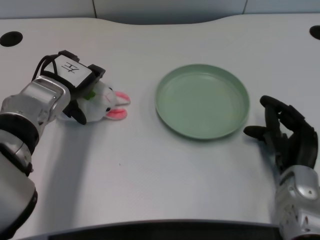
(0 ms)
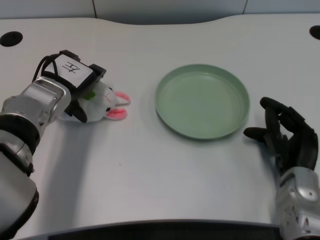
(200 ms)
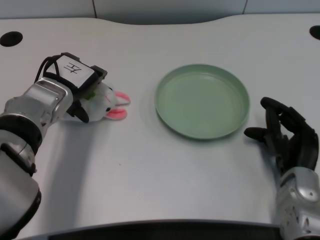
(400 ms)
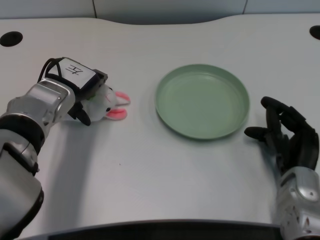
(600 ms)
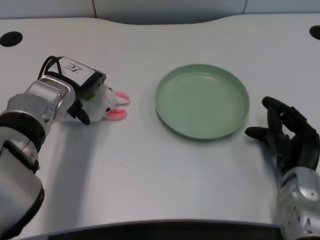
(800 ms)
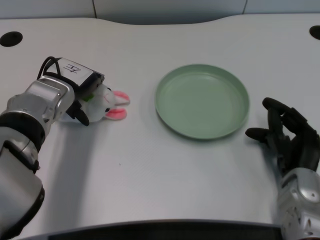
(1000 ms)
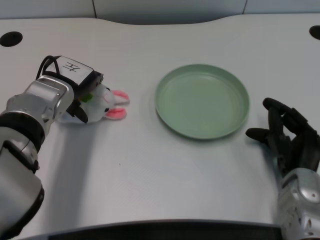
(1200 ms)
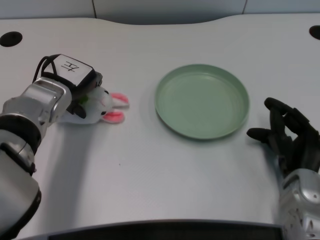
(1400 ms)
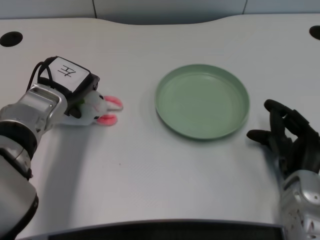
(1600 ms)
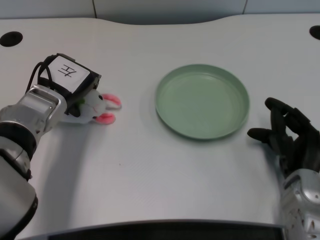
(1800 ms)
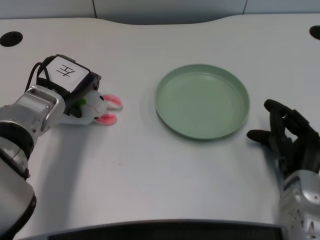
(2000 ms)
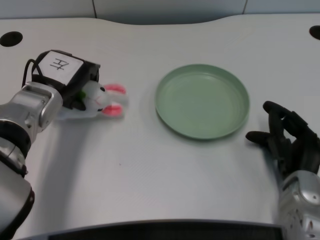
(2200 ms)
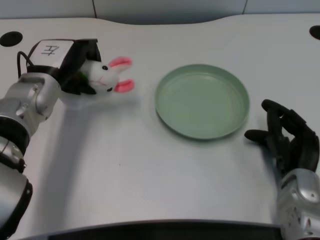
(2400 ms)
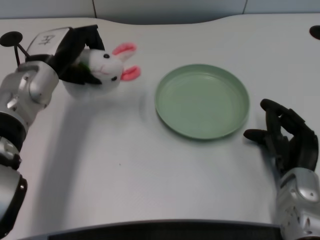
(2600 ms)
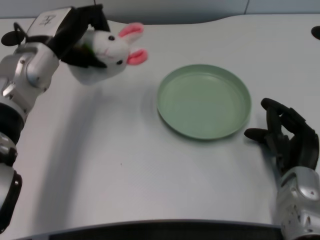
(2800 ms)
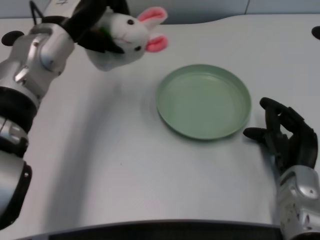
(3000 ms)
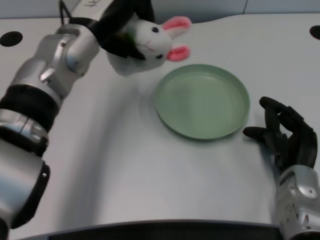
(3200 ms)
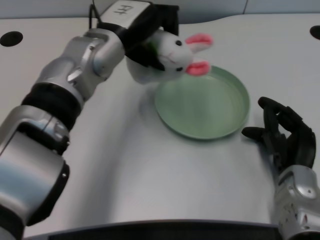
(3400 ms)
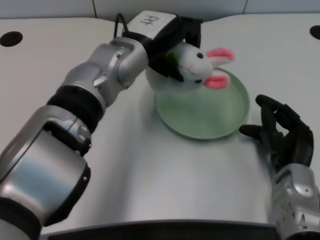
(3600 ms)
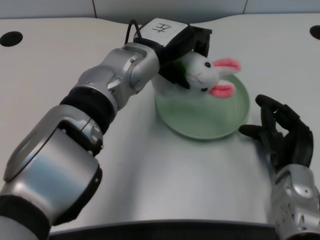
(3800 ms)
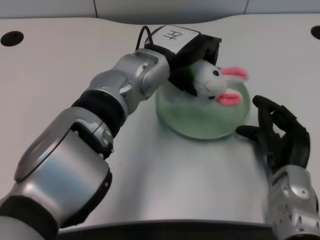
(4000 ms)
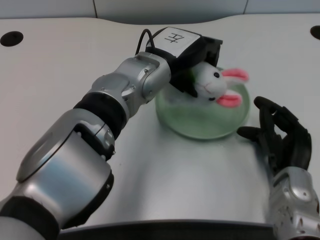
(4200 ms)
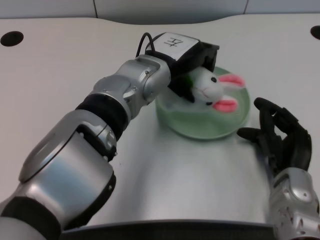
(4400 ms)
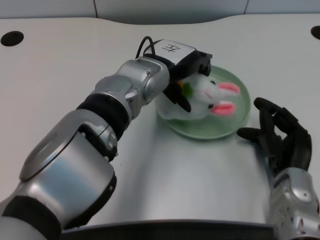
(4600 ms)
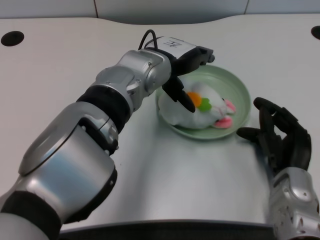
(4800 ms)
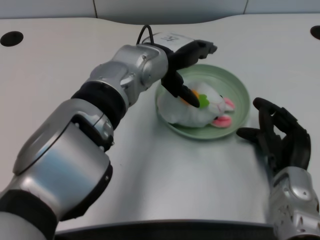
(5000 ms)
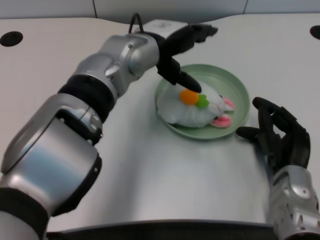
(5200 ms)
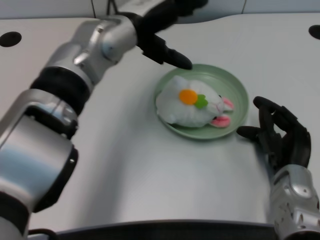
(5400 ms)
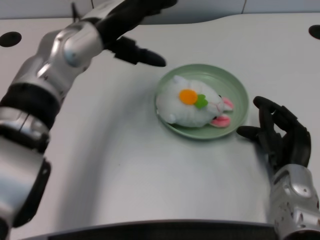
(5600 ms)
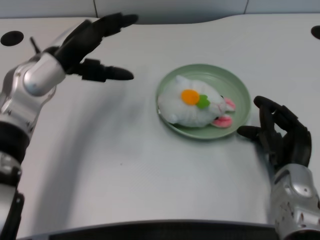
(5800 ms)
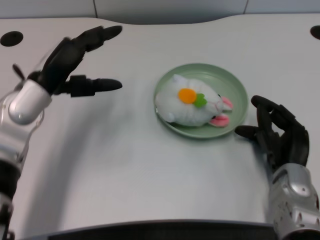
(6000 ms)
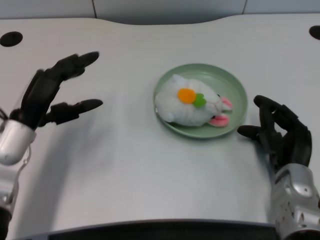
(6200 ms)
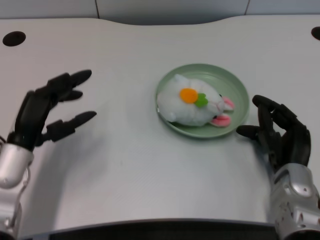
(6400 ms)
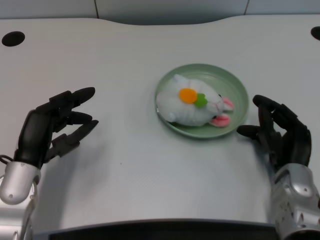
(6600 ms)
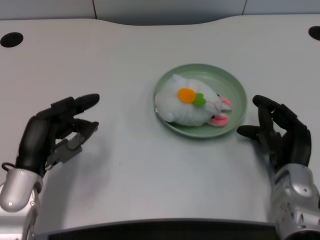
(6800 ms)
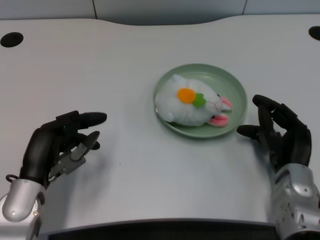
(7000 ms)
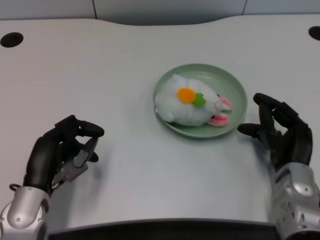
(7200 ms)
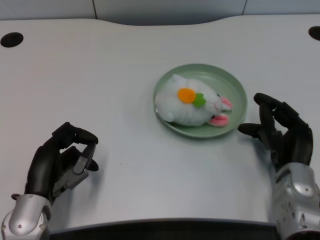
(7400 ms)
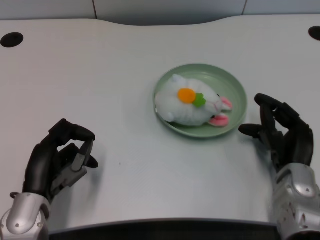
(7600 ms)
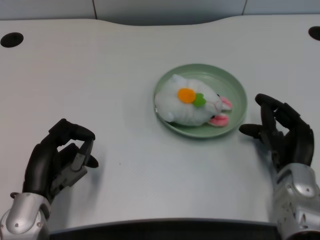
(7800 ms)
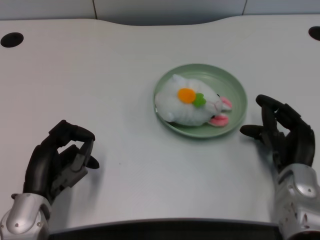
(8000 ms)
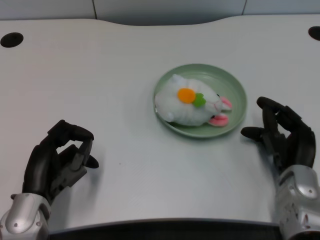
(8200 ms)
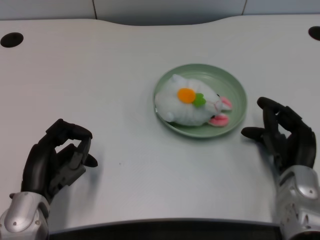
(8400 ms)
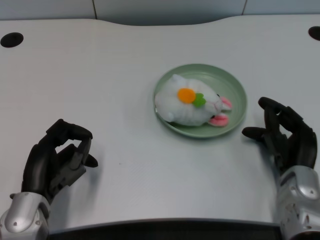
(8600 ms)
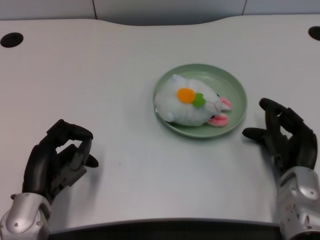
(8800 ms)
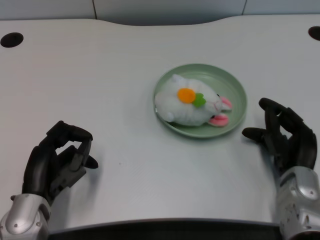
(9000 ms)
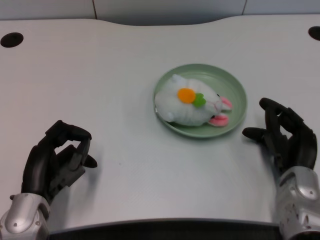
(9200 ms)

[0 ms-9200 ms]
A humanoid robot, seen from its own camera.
Task of the whole recording: pick up the rabbit doll from the table and place it on the plate.
Step, 0 ms to 2200 ms: Grasp the rabbit doll with the left gripper.
Step, 2400 ms to 4800 ms: Place the rabbit doll into the plate with the left gripper.
0 ms to 1600 ms: The hands make only small movements.
1600 ms to 3000 ms: The left hand moves upward, roughly 10 cm.
3000 ms to 4600 ms: The left hand travels to the right by some 10 cm.
4600 ms to 6200 ms: The left hand goes roughly 20 cm to the left and backward.
6200 ms to 7600 ms: The left hand goes some 10 cm backward and downward.
7600 ms to 9200 ms: Both hands stay put.

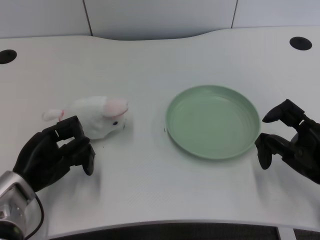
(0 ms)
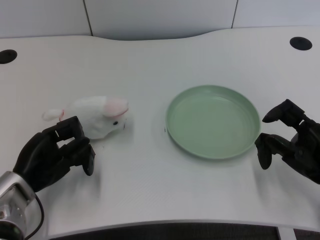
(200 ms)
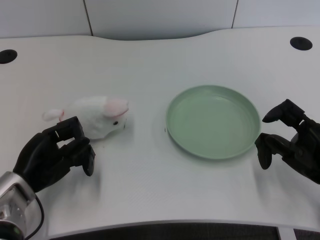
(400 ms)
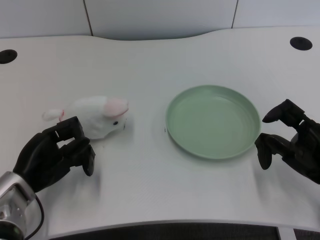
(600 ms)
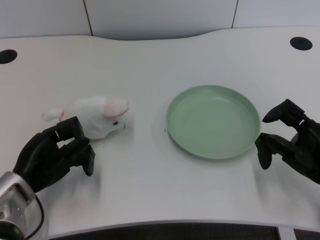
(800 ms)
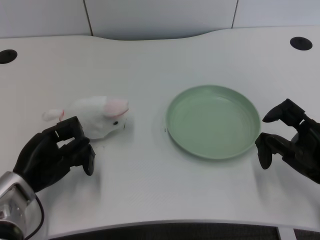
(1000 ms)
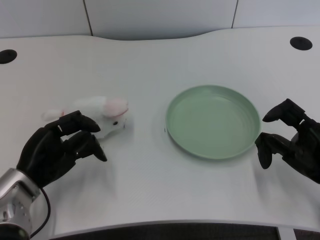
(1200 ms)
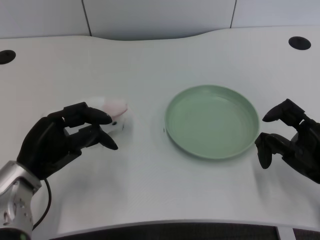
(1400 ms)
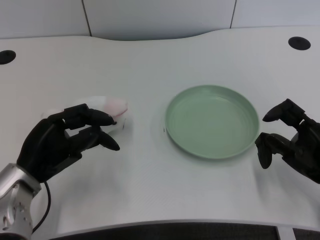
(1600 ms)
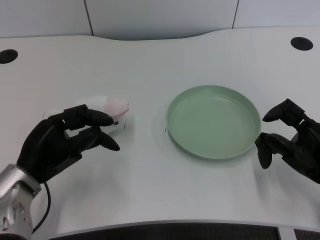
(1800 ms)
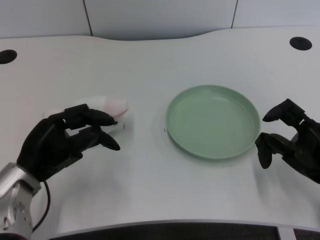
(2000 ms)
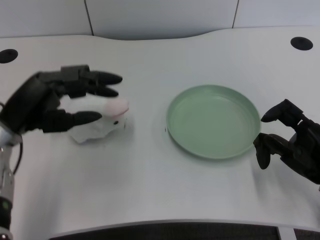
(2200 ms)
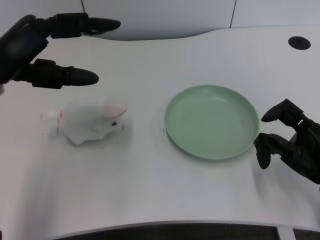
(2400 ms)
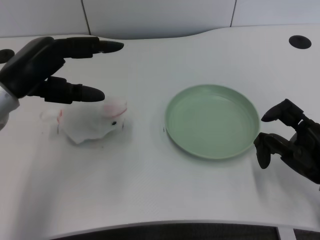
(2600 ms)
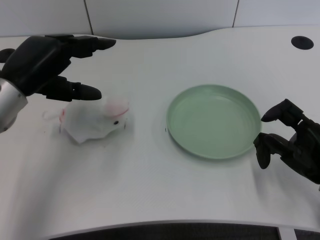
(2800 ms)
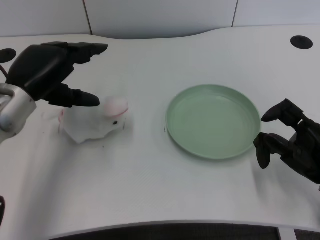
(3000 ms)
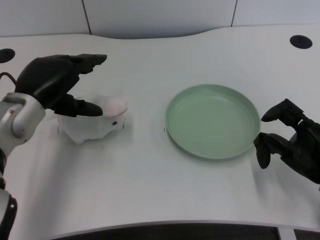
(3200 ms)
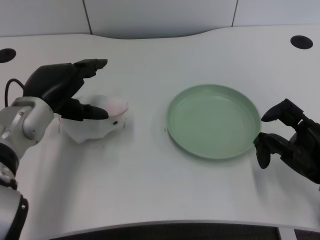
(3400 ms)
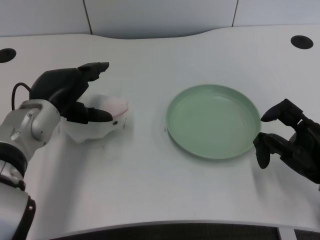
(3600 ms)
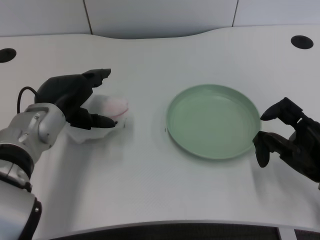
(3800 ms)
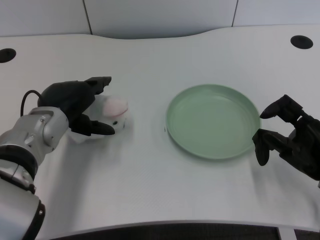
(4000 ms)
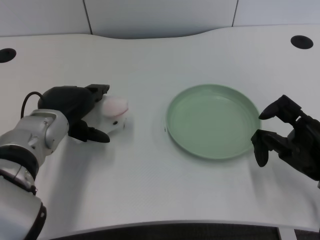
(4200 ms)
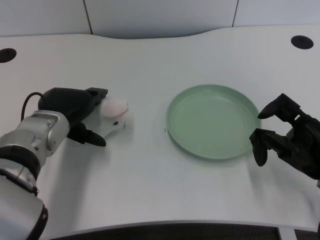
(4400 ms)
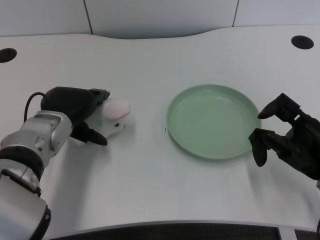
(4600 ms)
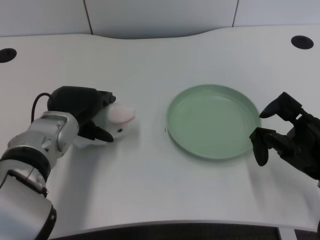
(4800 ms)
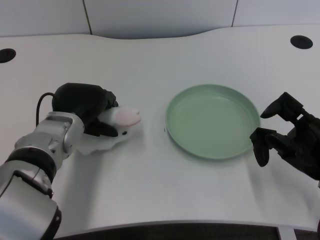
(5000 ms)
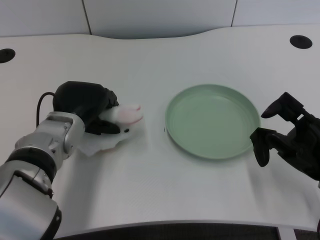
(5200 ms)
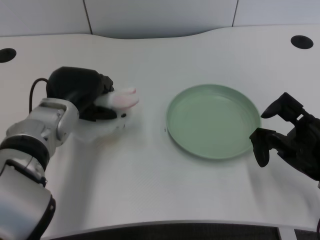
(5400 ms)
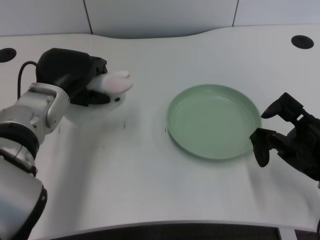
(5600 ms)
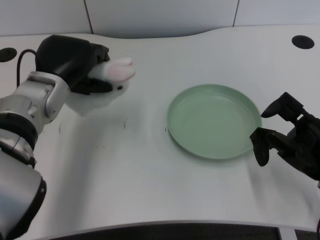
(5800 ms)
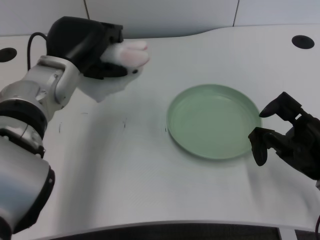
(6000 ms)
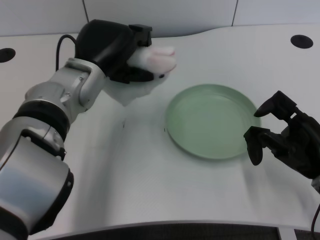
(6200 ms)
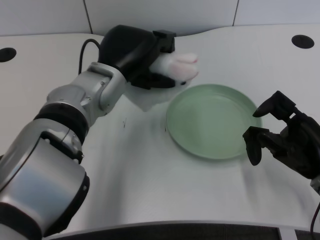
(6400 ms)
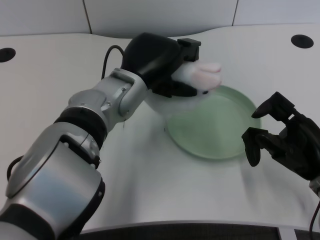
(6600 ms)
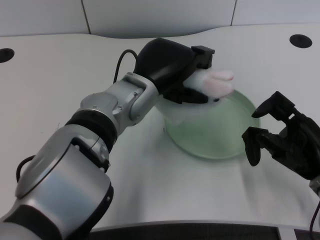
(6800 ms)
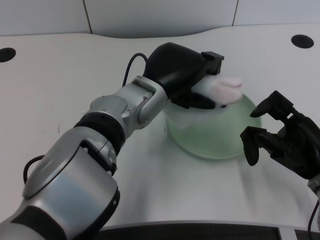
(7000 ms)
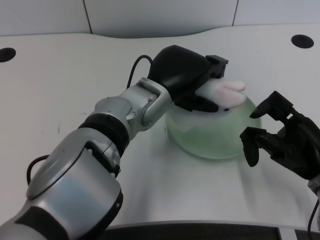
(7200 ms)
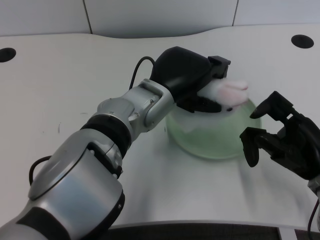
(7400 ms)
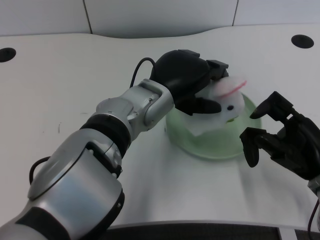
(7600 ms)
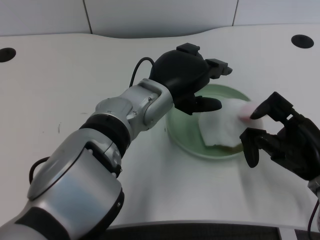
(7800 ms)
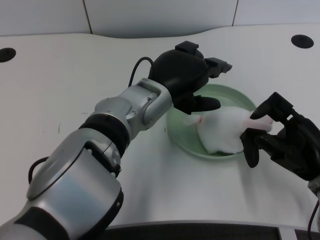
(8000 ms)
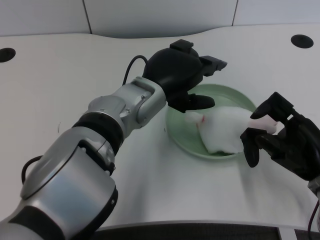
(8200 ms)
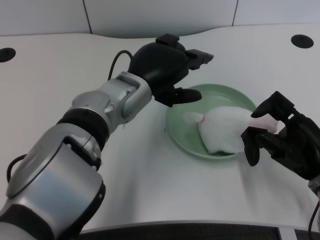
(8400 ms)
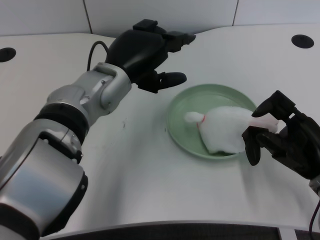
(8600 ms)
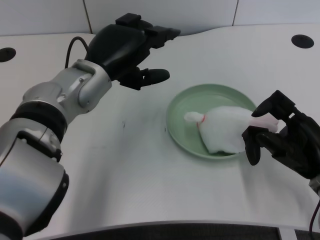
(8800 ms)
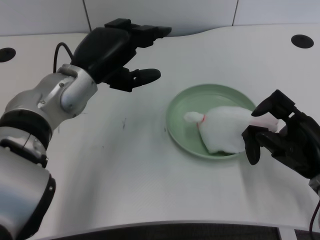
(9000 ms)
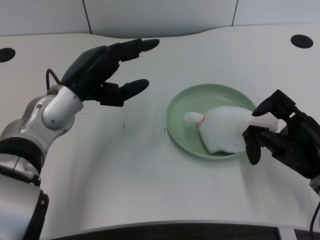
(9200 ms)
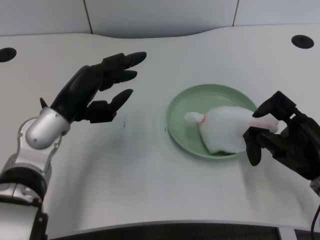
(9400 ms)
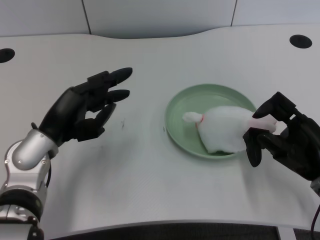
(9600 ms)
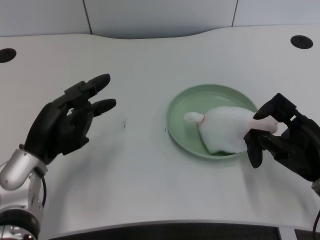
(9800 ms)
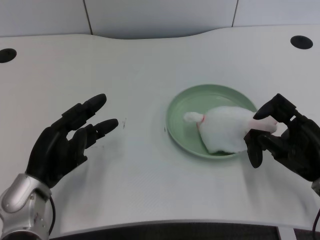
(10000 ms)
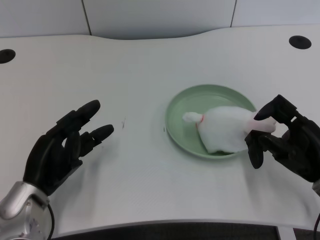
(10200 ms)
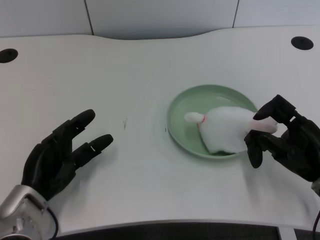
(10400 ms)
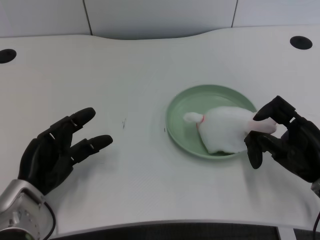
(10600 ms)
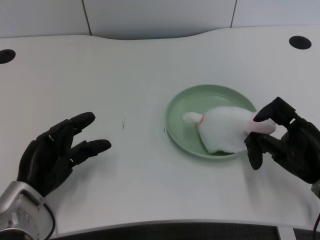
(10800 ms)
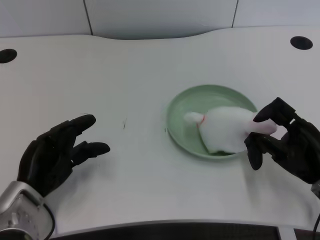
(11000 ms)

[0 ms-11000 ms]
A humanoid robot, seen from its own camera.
Task of the whole recording: pick up the rabbit doll from the table and place it on the plate.
Step, 1000 ms to 5200 ms: Grasp the rabbit doll with the left gripper.
Step, 5400 ms to 7600 ms: Place the rabbit doll into the plate with the left gripper.
1600 ms to 3200 ms: The left hand moves upward and forward, about 10 cm.
3200 ms to 4800 ms: The left hand moves roughly 5 cm.
4800 ms to 6200 ms: The left hand moves upward, some 5 cm.
6200 ms to 7800 ms: The left hand shifts approximately 10 cm to the right.
7800 ms to 9400 ms: The left hand heads to the left, covering approximately 15 cm.
9400 ms to 11000 ms: The left hand is displaced downward, backward and to the left by approximately 10 cm.
